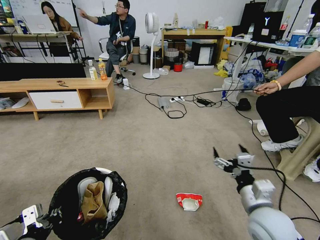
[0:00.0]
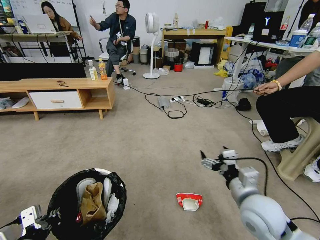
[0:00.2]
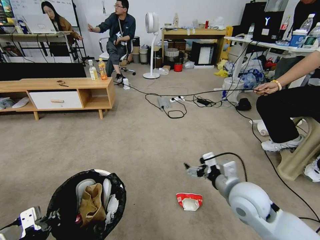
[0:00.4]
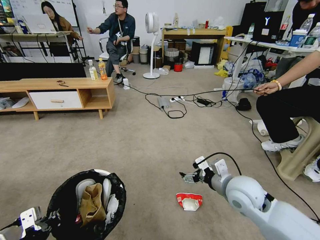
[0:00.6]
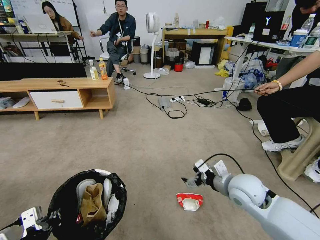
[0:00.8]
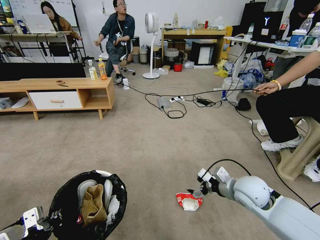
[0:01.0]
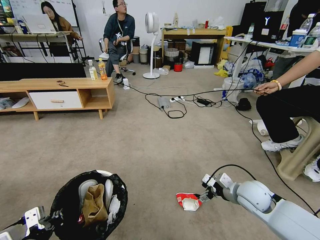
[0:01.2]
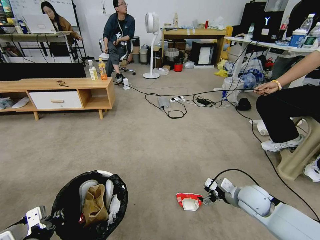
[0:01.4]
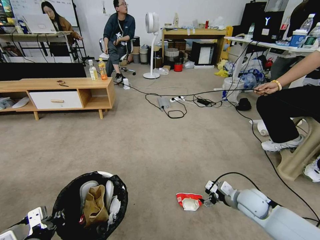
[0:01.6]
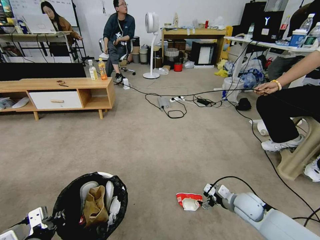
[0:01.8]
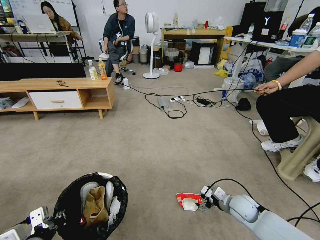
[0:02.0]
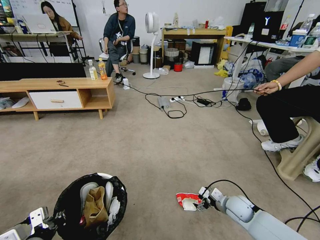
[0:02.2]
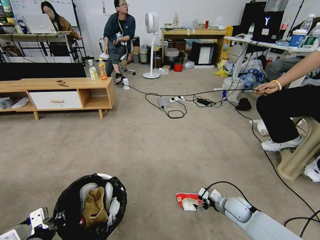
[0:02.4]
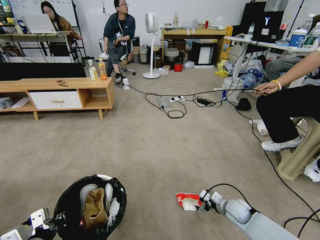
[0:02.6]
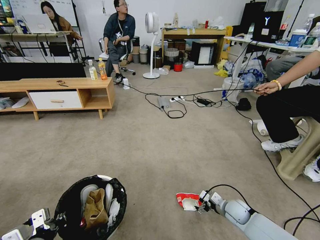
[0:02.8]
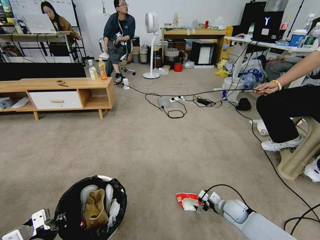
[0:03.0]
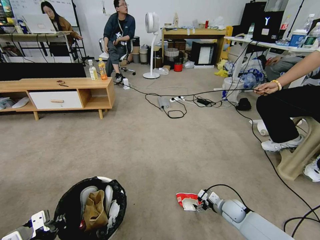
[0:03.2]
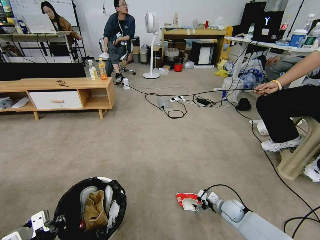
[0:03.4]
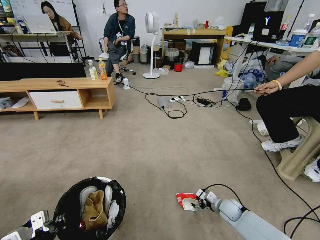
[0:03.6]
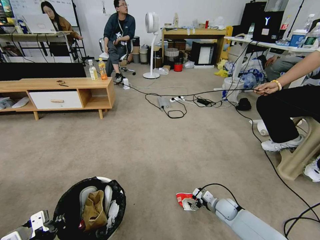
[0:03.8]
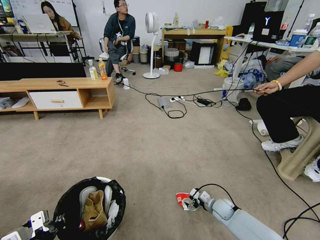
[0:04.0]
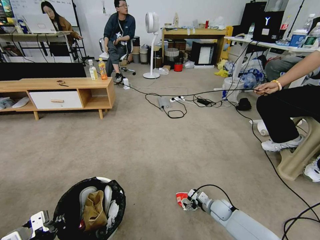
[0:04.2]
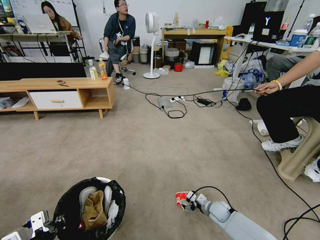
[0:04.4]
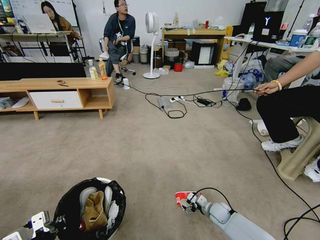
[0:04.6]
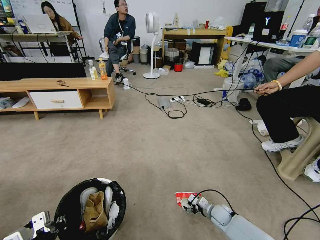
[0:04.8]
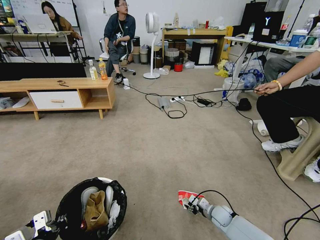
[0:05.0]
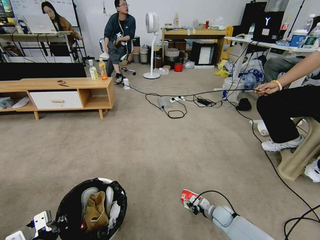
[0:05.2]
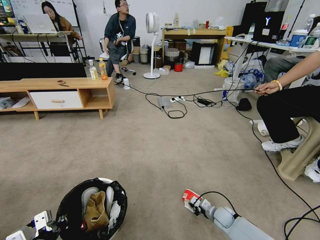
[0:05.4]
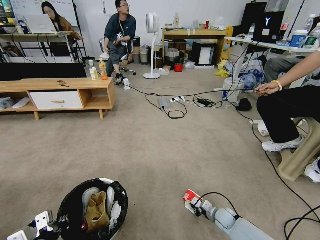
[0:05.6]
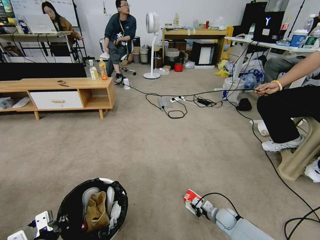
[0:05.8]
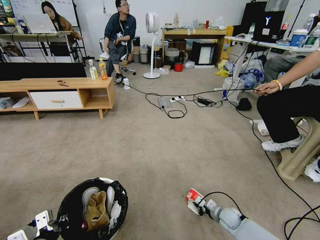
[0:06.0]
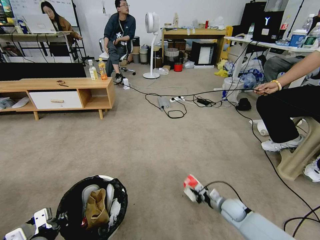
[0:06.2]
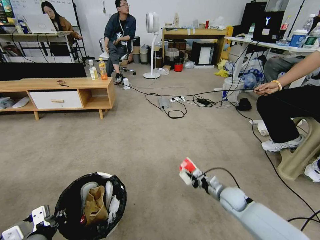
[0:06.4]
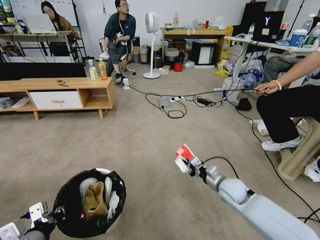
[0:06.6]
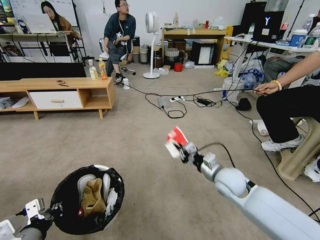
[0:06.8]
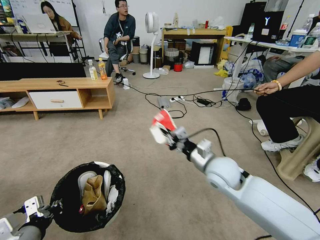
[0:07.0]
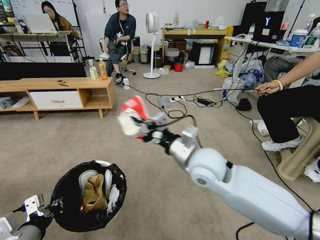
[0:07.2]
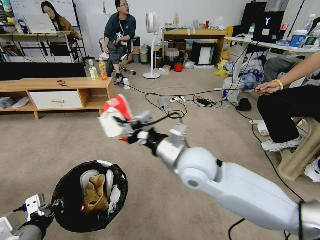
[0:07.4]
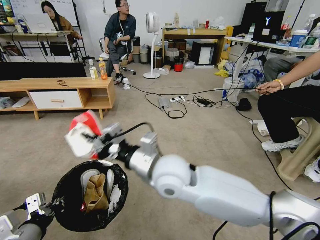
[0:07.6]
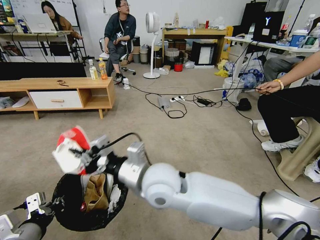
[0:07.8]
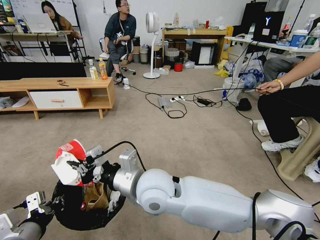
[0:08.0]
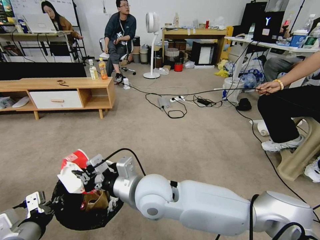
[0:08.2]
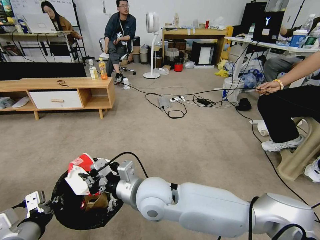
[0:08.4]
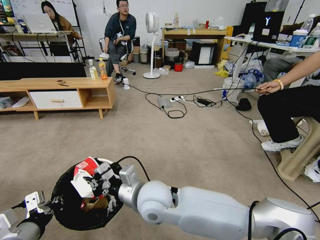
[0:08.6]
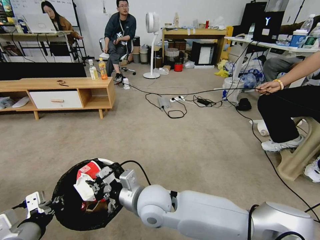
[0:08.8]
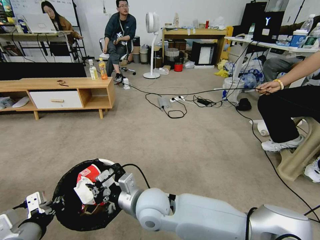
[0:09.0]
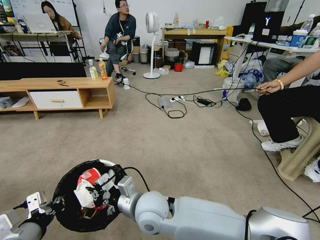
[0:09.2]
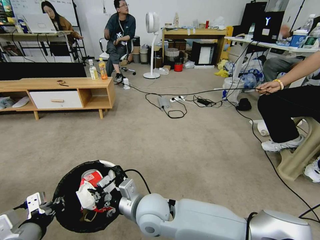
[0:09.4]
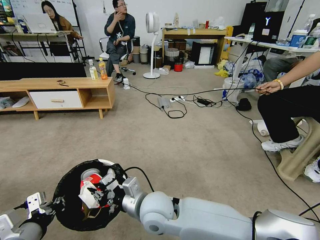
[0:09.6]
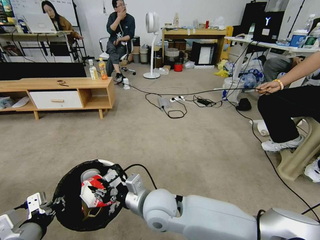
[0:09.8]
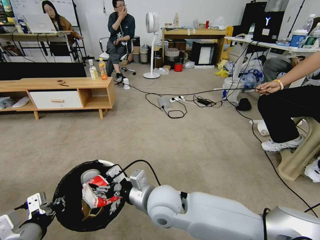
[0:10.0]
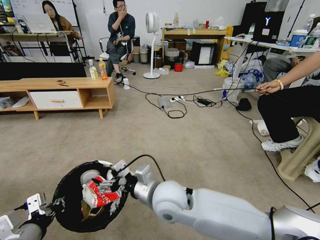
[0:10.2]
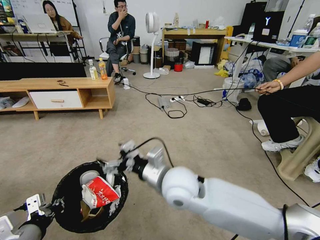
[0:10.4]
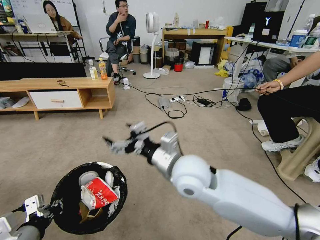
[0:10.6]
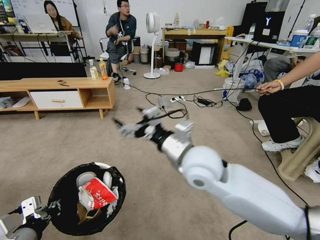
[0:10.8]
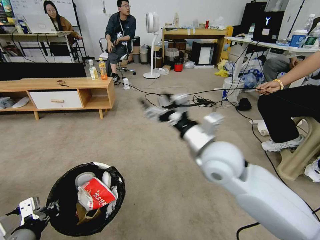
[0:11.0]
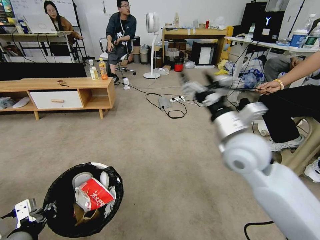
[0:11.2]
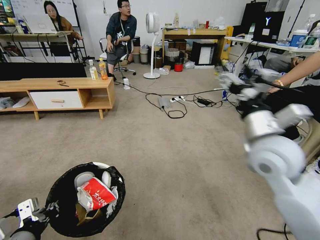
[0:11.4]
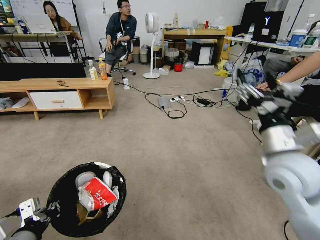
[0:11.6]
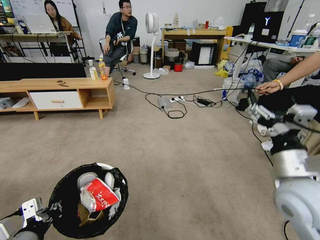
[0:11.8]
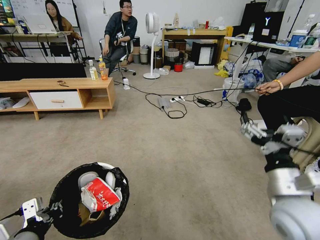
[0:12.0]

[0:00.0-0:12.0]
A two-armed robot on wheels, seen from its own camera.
Task of the whole recording: Pick up the trash bin and place the garbage on the floor into it.
0:00.0 to 0:01.6: The right gripper goes about 15 cm forward, downward and to the right.
0:01.6 to 0:03.0: The right gripper travels downward by approximately 10 cm.
0:03.0 to 0:04.4: The right gripper ends up approximately 5 cm from where it was.
0:04.4 to 0:06.0: The right gripper closes up.
0:06.0 to 0:07.6: The left gripper moves upward, approximately 5 cm. Meanwhile the right gripper travels upward and to the left by roughly 50 cm.
0:07.6 to 0:09.0: The right gripper moves downward and to the left, about 15 cm.
0:09.0 to 0:10.4: The right gripper shifts by about 5 cm, and opens.
0:10.4 to 0:12.0: The right gripper goes about 25 cm to the right.

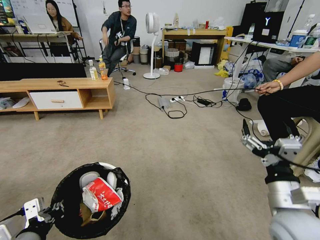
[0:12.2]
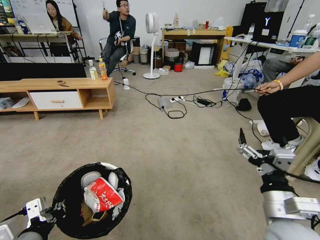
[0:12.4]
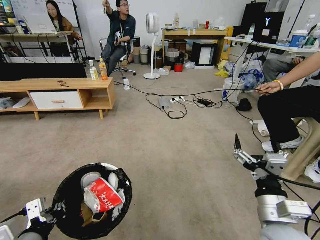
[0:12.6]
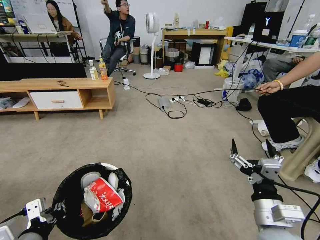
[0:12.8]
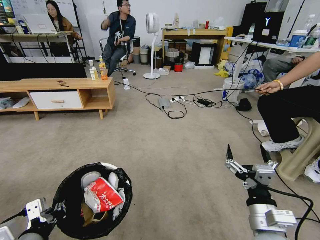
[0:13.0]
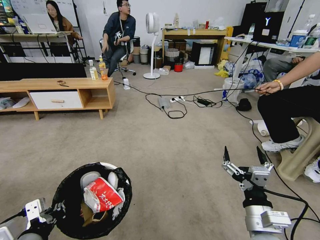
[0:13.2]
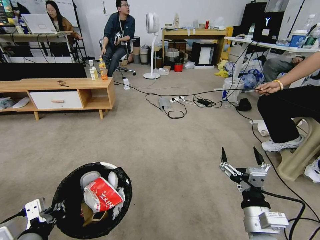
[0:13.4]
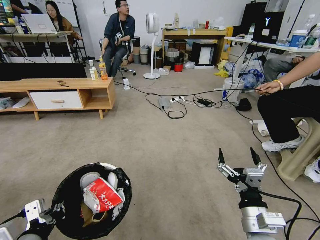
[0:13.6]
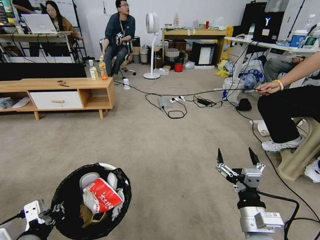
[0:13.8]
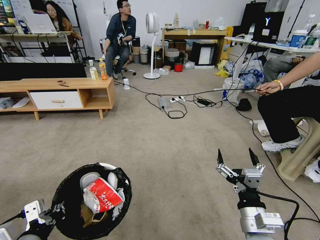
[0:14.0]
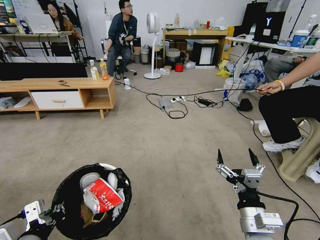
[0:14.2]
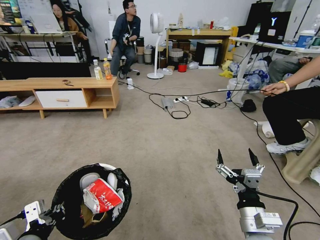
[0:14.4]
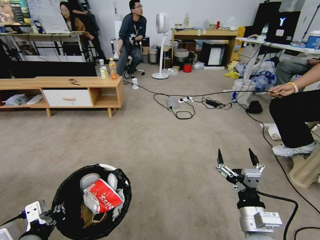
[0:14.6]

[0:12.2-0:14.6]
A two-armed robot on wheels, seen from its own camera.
Task of the whole recording: Pick up the trash bin and place the garbage on the floor into it.
0:12.2 to 0:13.4: The right gripper moves downward, roughly 5 cm.
